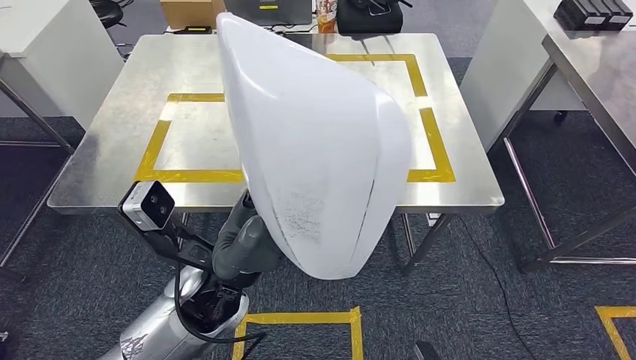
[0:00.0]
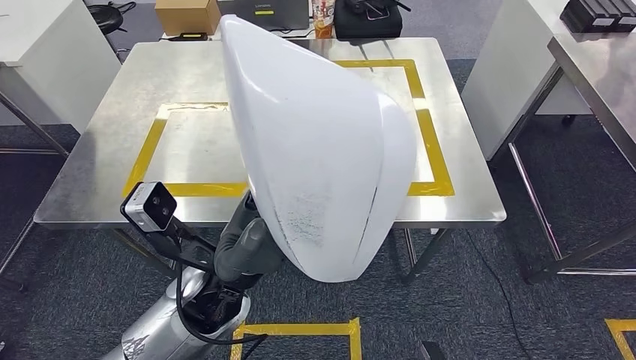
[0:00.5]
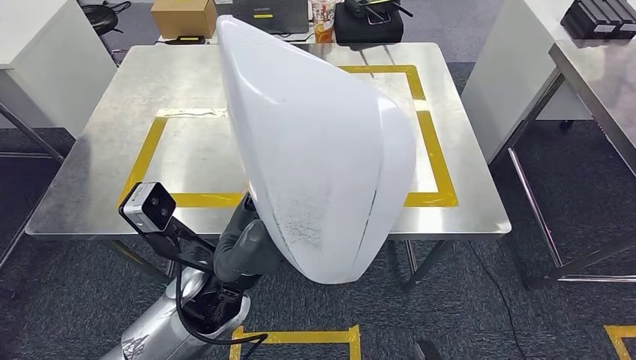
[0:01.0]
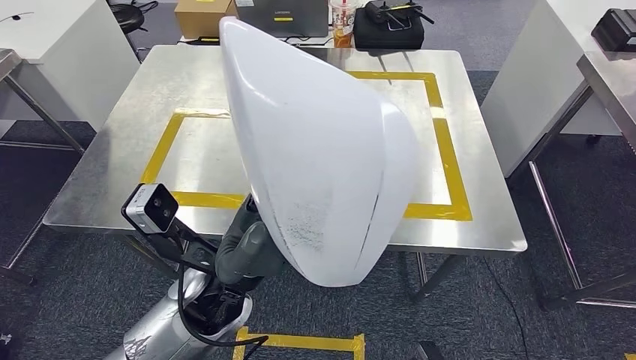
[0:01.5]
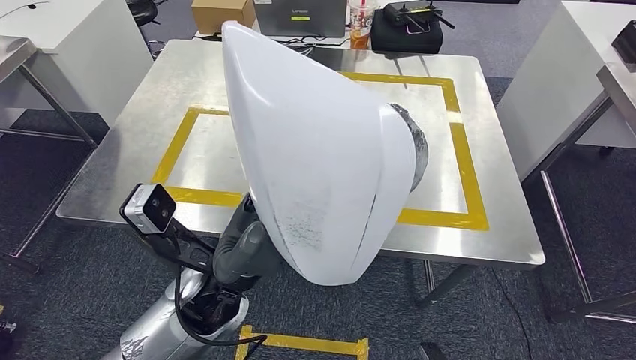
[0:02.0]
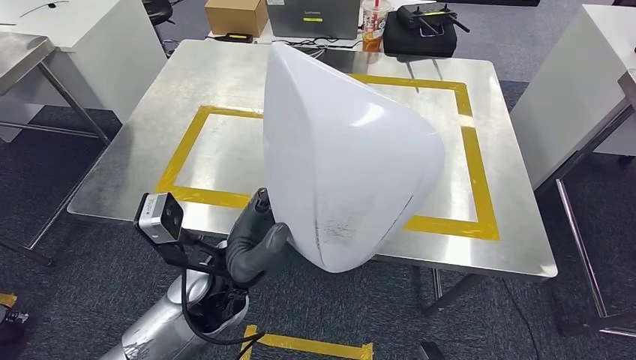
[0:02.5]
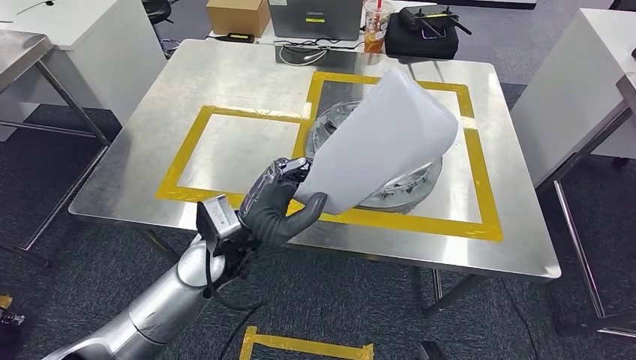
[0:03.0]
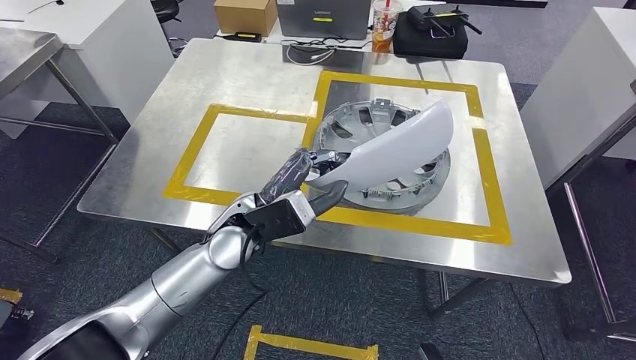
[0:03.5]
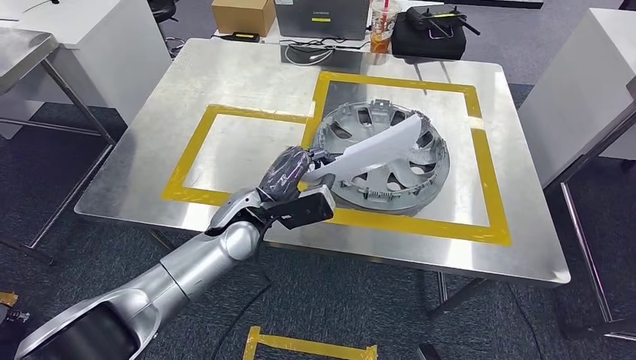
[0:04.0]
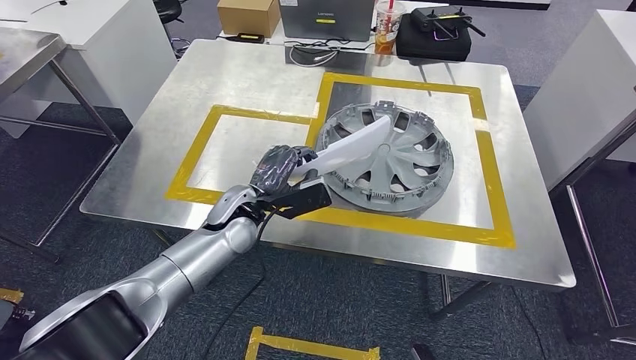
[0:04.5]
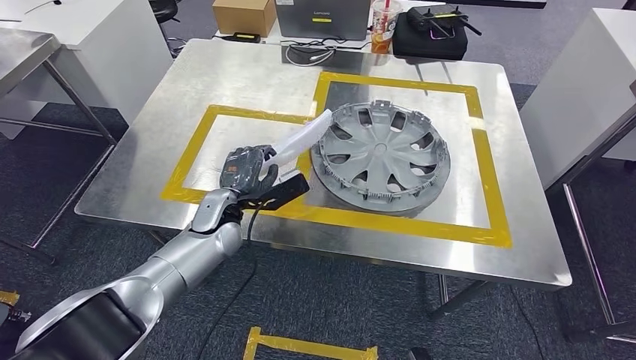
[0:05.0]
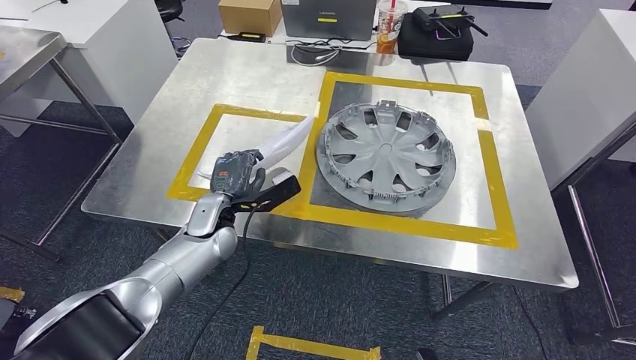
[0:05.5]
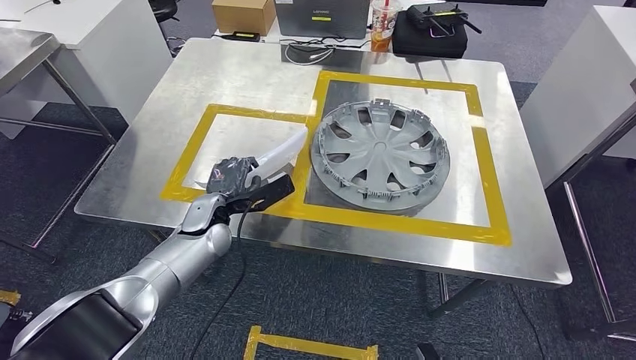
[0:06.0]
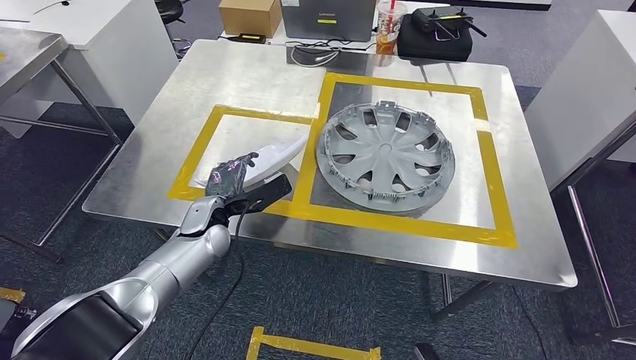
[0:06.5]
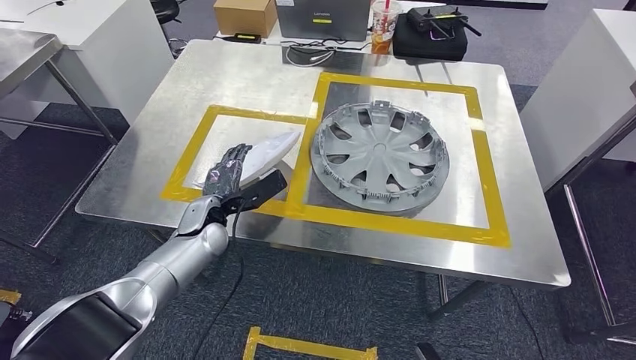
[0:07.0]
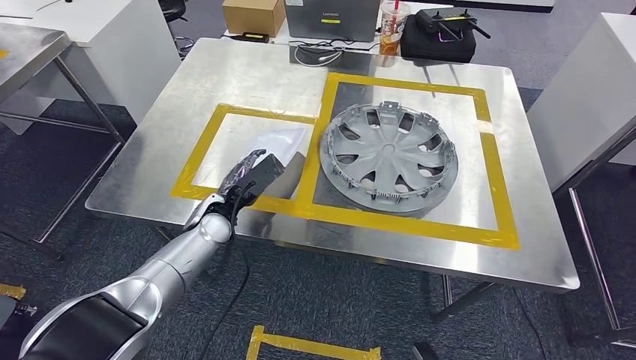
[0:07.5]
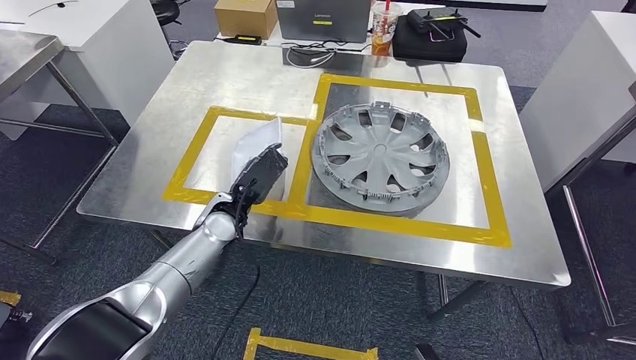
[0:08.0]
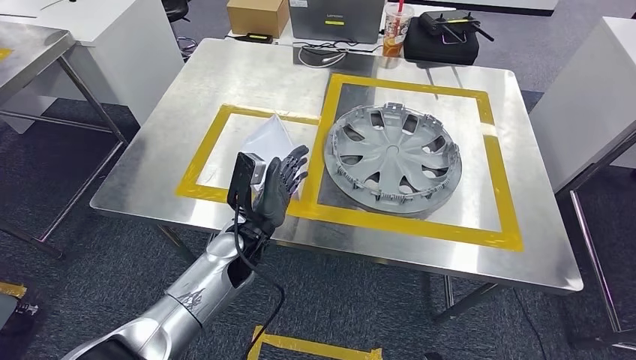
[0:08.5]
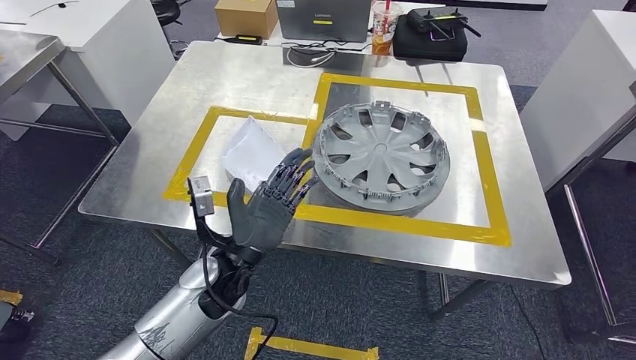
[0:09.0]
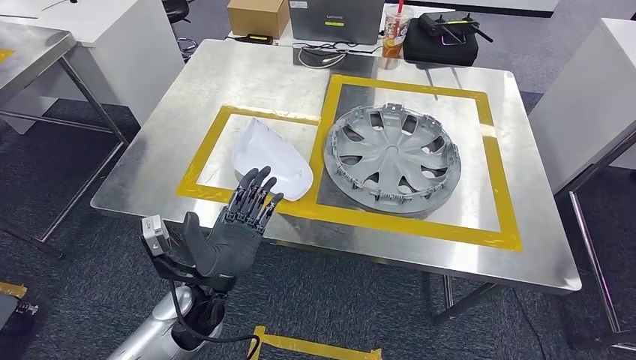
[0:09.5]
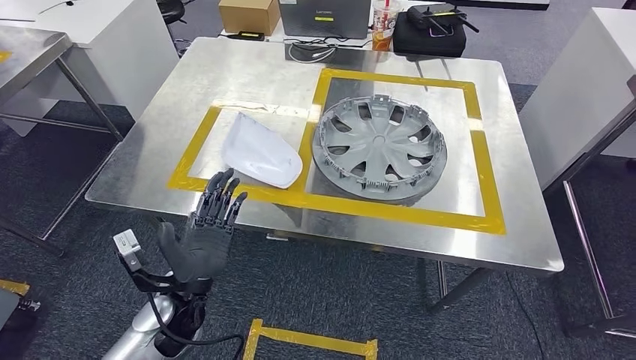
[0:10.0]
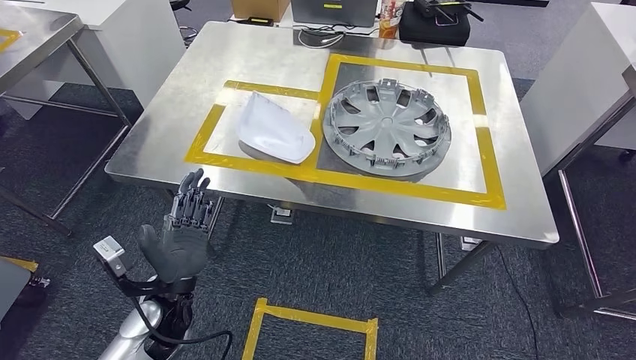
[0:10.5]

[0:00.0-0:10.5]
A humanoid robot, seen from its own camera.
Step, 0:00.0 to 0:08.0: Insert the small parts into the corresponding slots on the workbench.

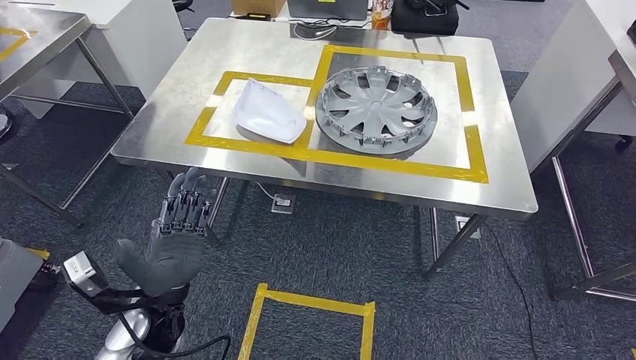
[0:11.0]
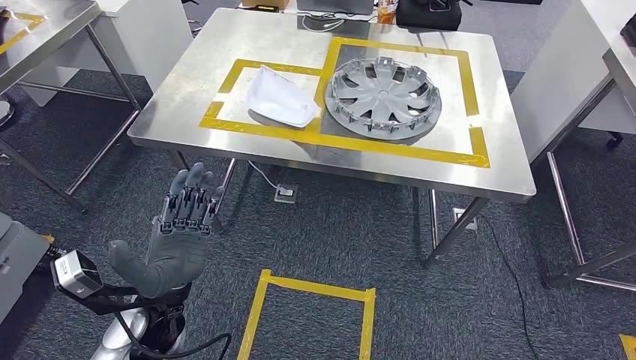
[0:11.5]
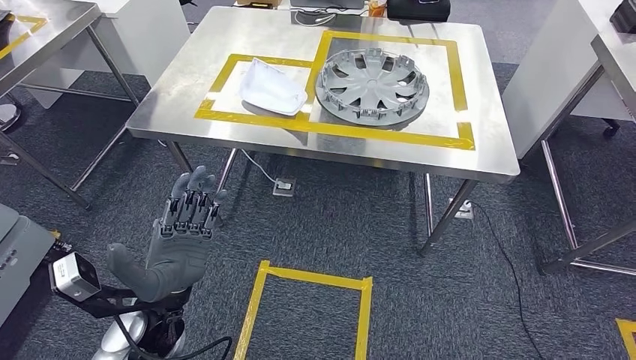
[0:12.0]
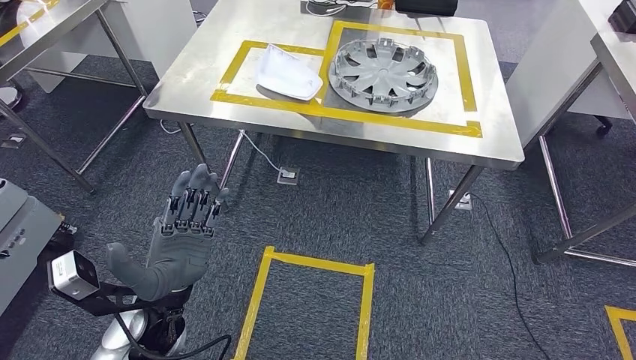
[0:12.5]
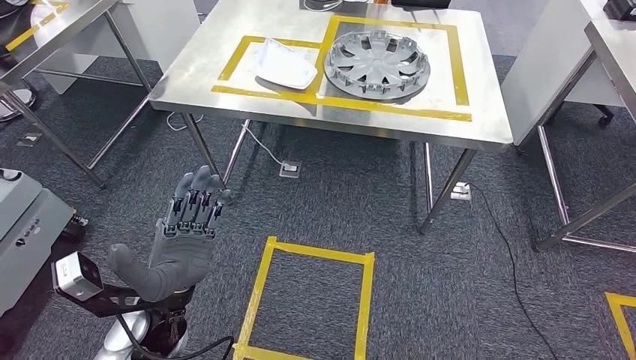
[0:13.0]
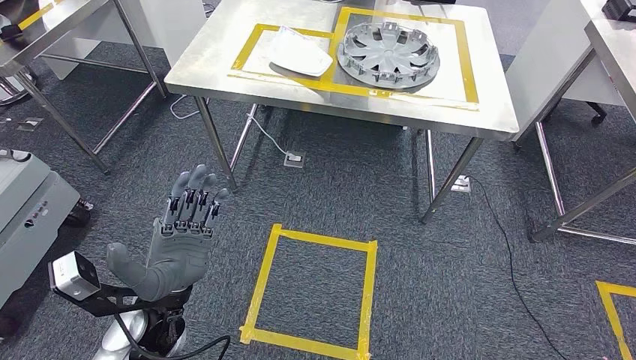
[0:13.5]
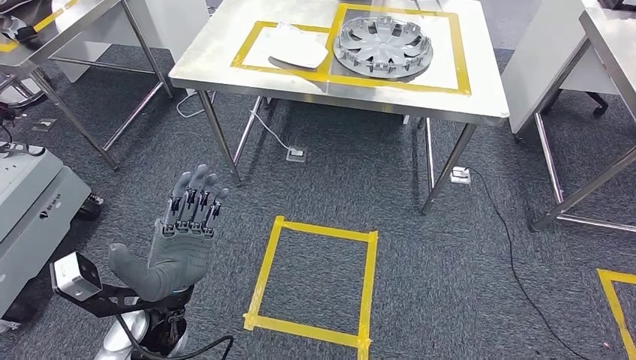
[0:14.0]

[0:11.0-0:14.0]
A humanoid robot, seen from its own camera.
Step, 0:11.0 to 0:14.0: Return to the initial position at the workbench.
